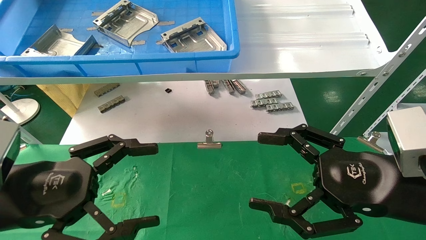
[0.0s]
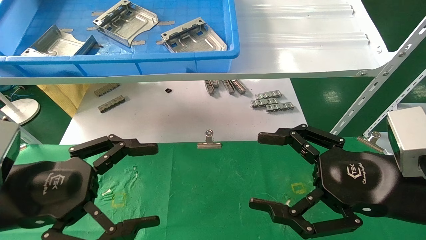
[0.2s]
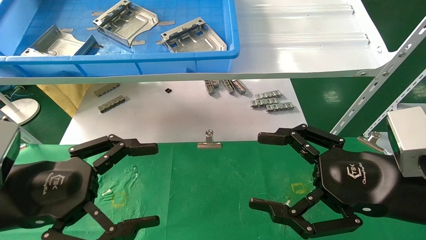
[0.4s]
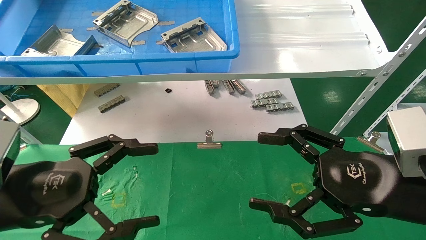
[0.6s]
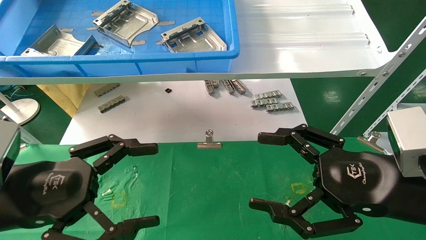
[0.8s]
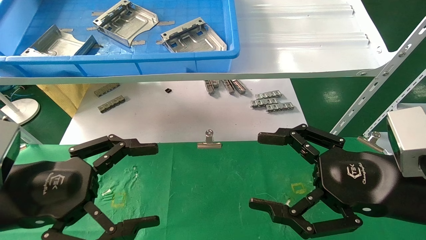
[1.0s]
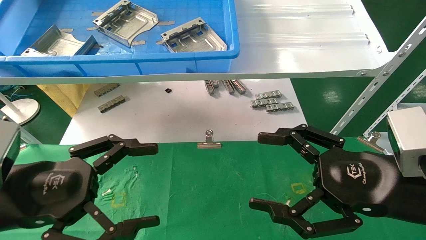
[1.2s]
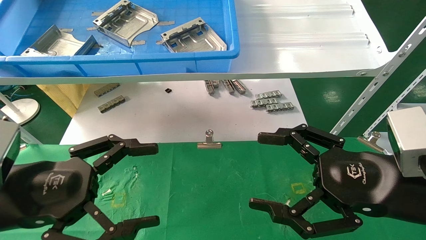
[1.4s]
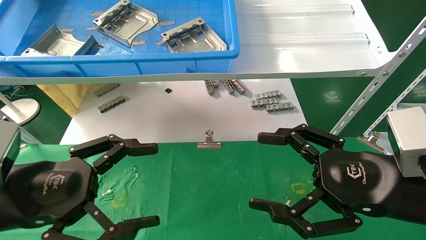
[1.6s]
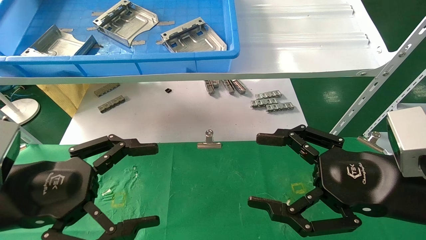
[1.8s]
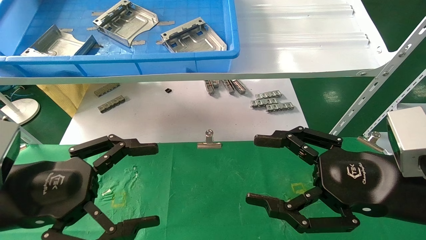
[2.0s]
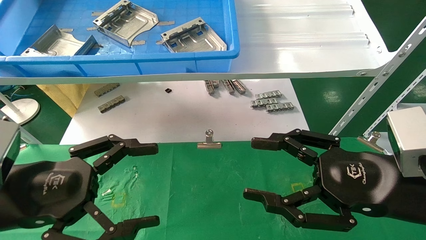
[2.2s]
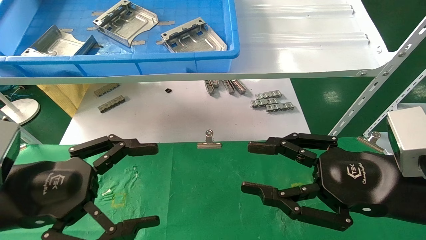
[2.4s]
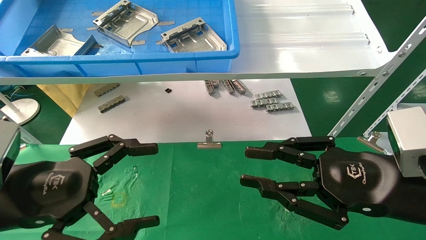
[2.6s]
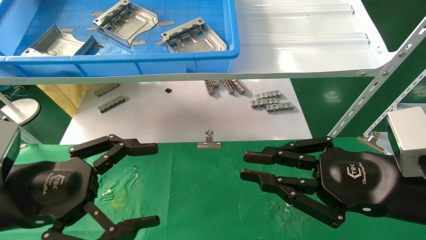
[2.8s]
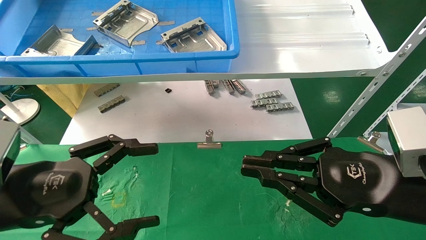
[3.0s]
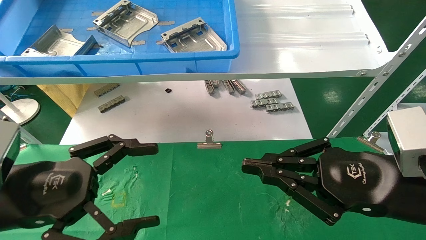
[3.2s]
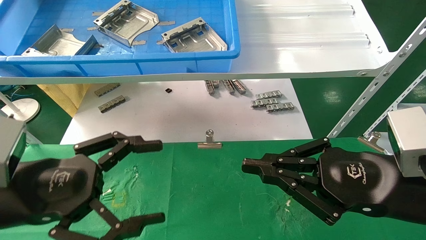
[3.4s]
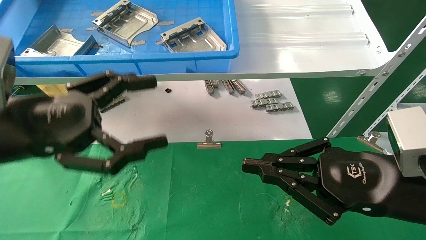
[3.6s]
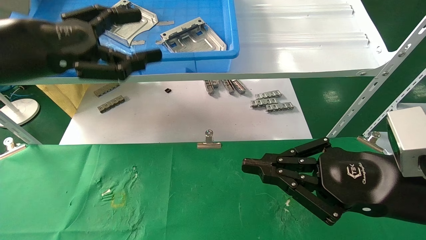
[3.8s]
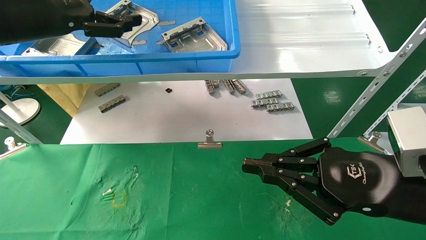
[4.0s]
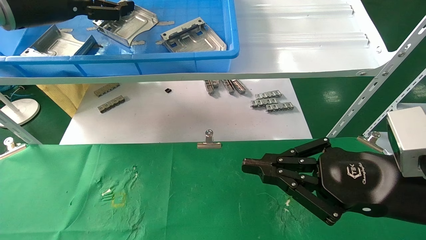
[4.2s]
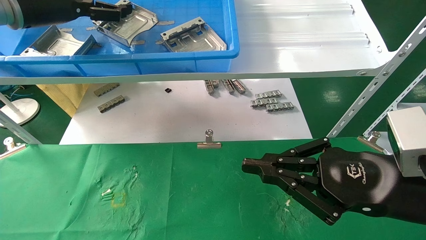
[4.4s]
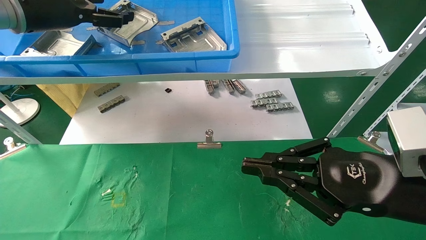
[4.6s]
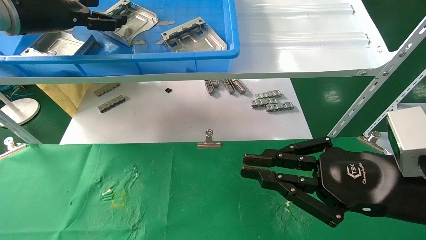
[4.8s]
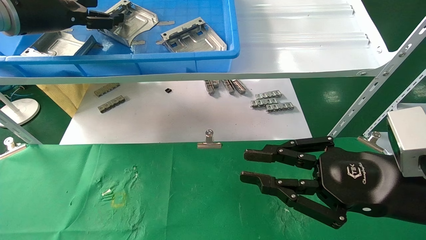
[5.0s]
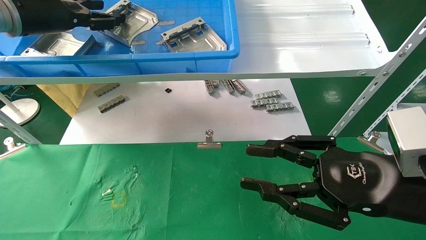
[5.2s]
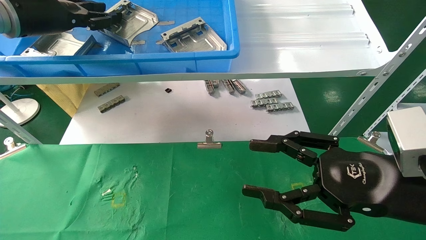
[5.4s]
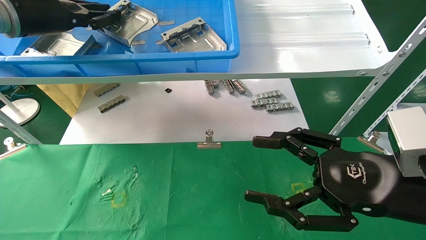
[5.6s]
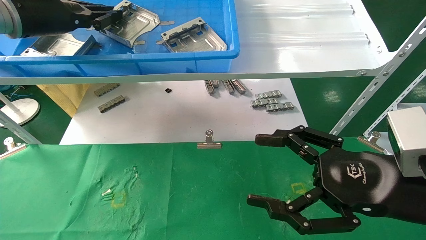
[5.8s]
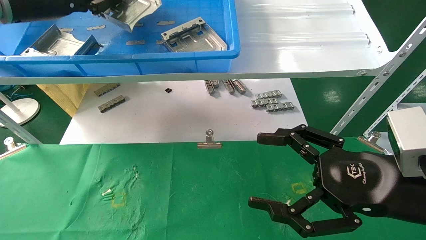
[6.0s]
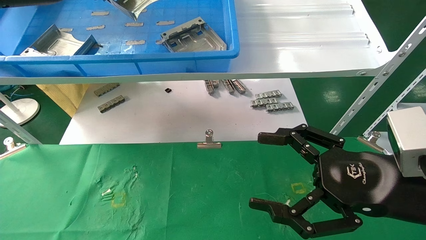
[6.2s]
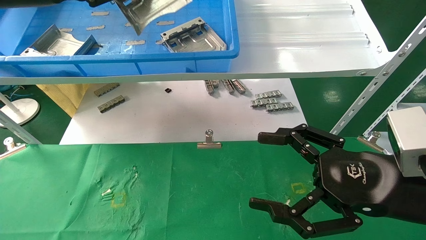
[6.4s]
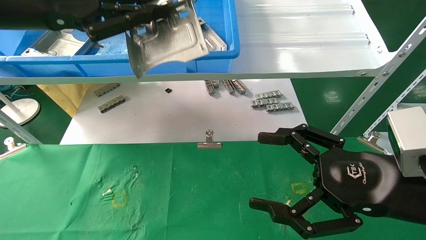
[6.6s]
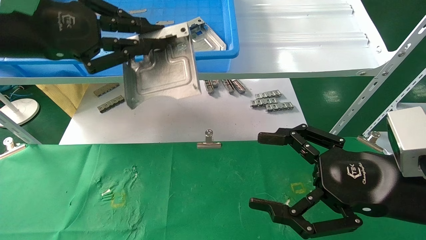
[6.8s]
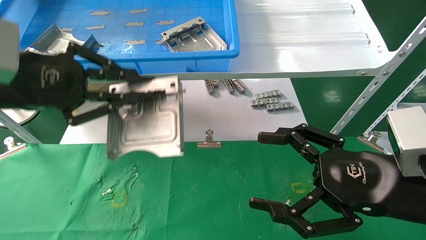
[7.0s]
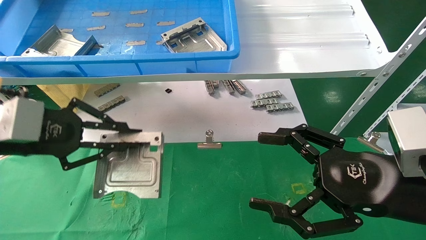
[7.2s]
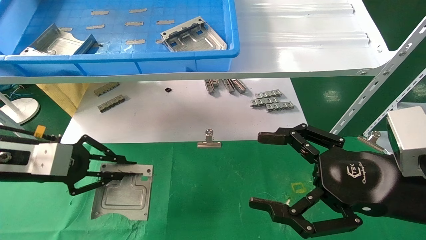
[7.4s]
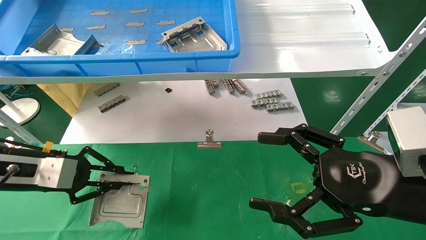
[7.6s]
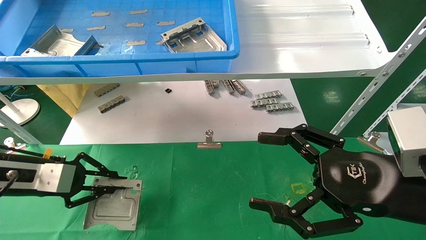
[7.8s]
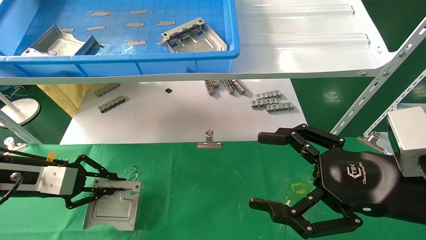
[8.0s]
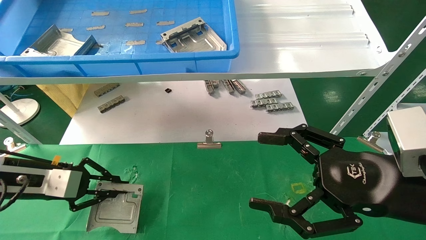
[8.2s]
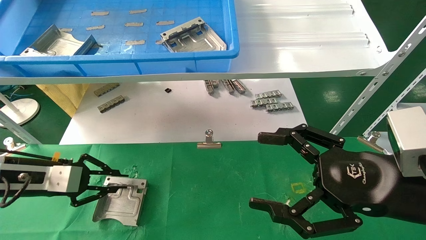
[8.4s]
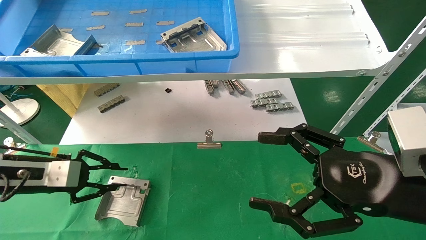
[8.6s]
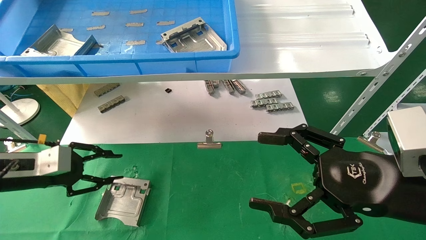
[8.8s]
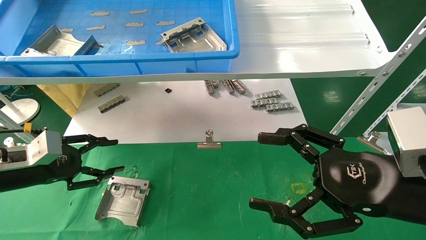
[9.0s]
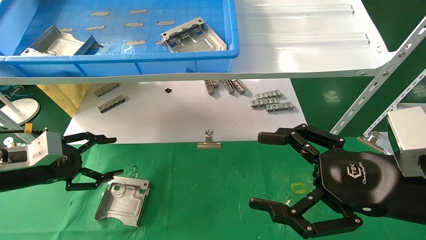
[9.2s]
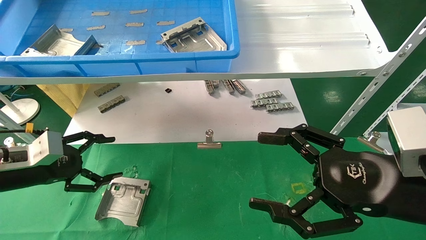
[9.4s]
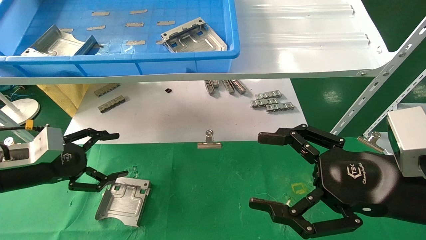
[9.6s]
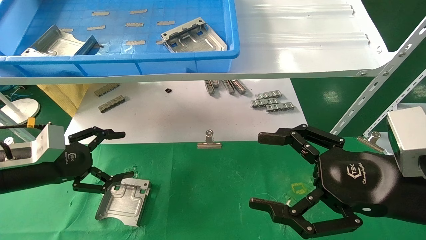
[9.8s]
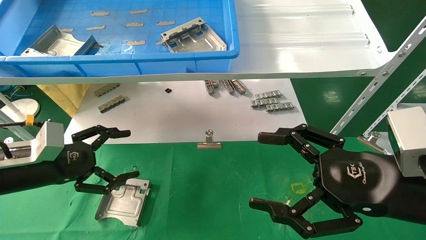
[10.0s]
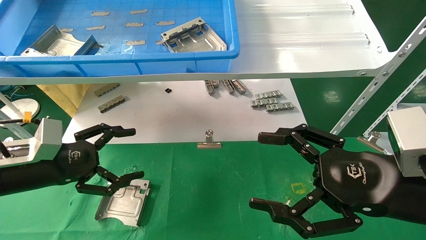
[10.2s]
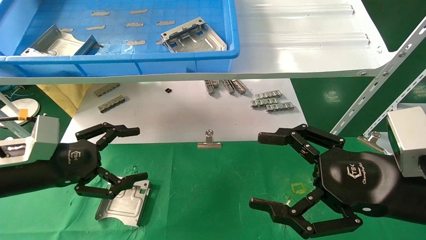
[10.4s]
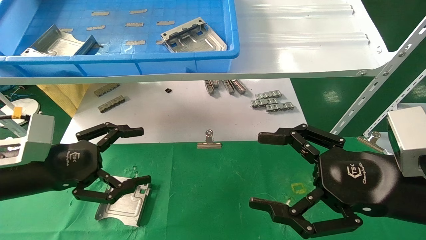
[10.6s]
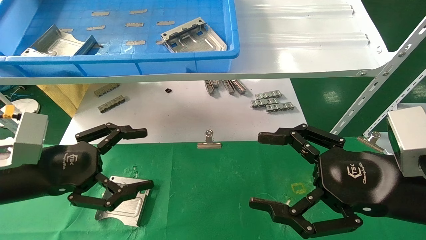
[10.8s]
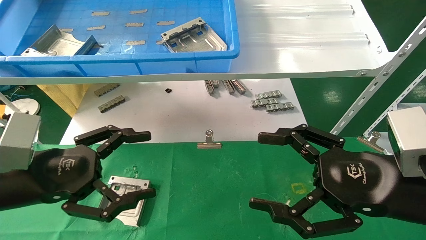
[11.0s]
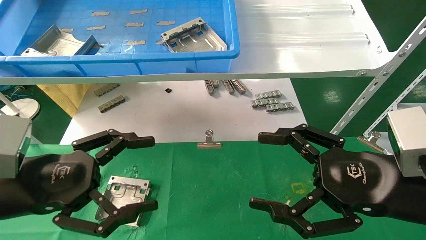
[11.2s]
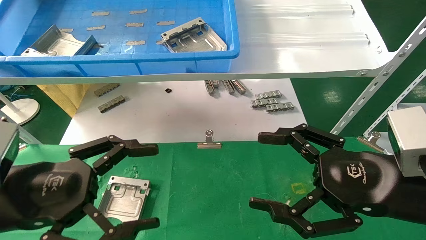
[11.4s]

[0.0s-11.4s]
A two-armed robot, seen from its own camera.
Task of the whole recording: use the mechanical arm to pick up the parts and place them on the table.
Step, 3.6s to 5.8s: Pick up the hard drive bracket from the feeding area.
Step, 6.0s to 9.0s: Place the hard drive bracket into the box.
0.0s to 1.4s: The two grippers keep their place.
1.4s to 2.8s: The right gripper closes.
2.8s to 4.2s: The left gripper is displaced upward and forward by about 30 cm.
4.2s to 5.6s: The left gripper closes up. Meanwhile the right gripper opens its fingers.
5.6s to 7.2s: The left gripper travels downward and backward by about 20 cm. The right gripper opens.
7.2s to 8.6s: The left gripper moves downward, forward and to the left, about 15 cm.
8.6s to 10.0s: The left gripper opens.
10.0s to 11.4s: The left gripper moves backward and to the right, approximately 15 cm.

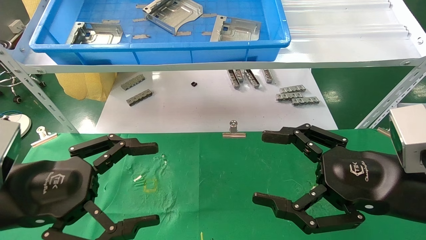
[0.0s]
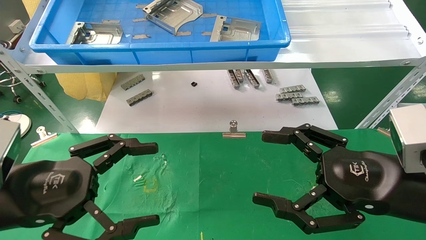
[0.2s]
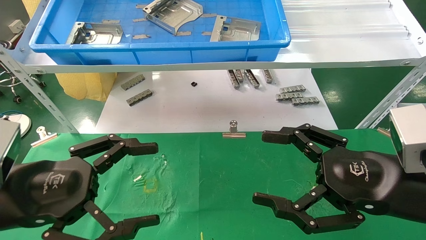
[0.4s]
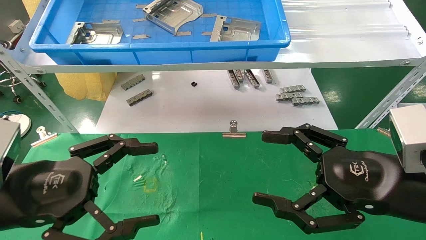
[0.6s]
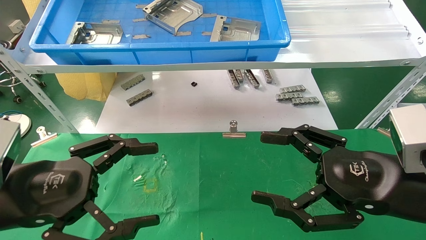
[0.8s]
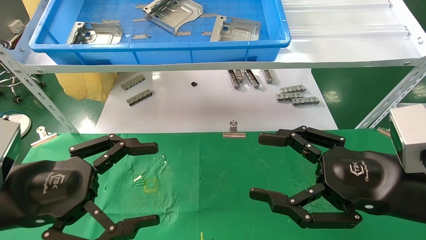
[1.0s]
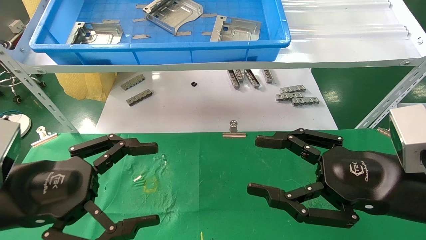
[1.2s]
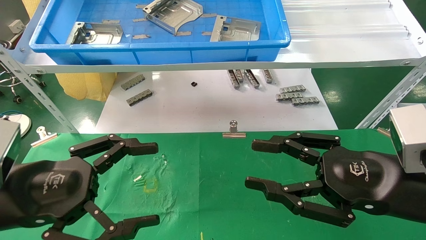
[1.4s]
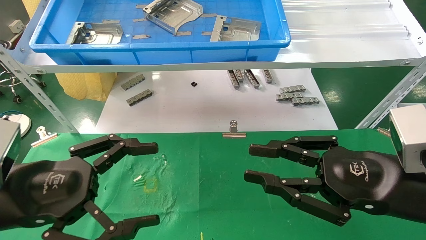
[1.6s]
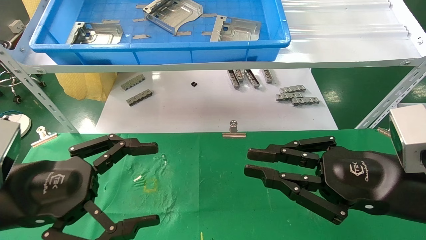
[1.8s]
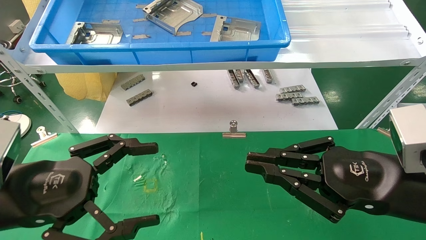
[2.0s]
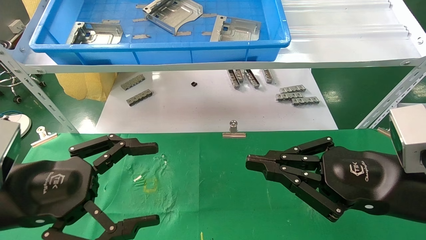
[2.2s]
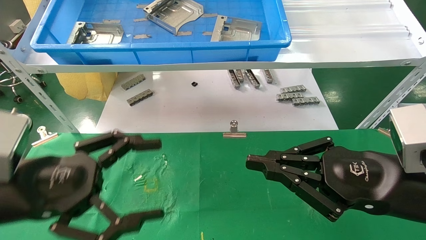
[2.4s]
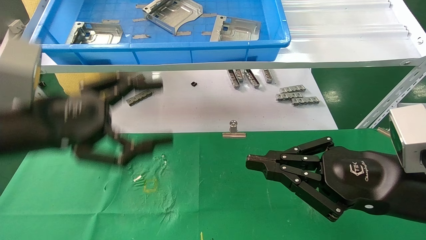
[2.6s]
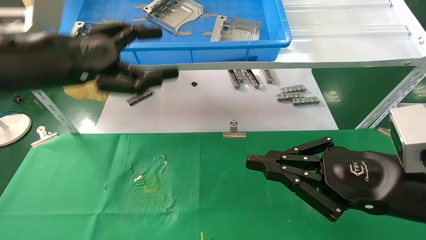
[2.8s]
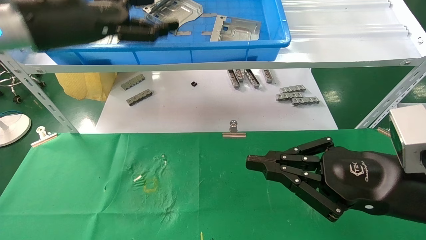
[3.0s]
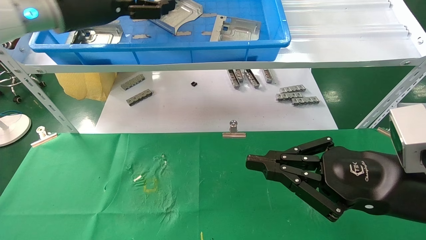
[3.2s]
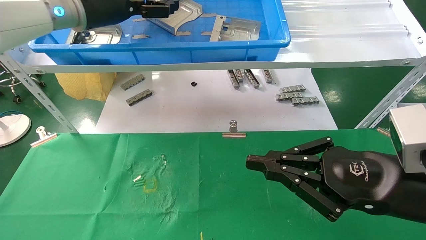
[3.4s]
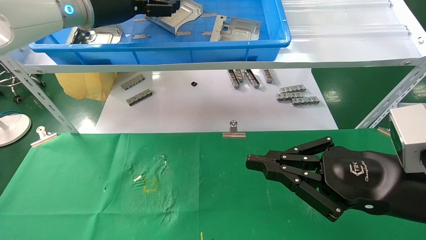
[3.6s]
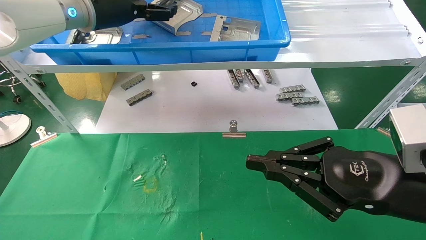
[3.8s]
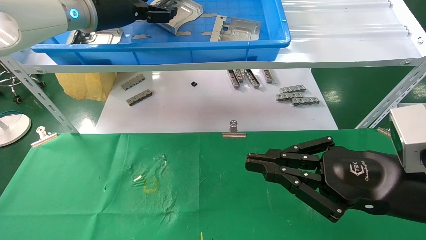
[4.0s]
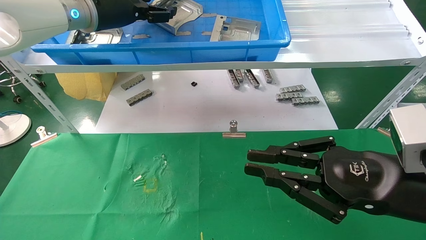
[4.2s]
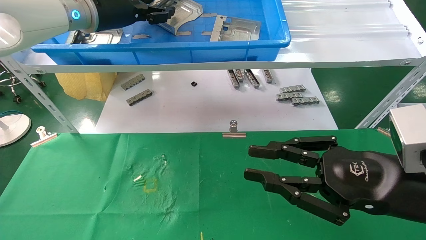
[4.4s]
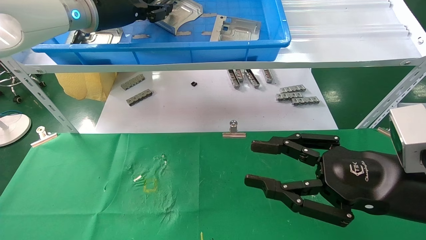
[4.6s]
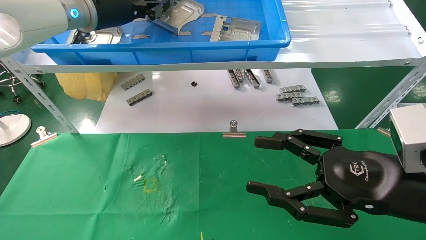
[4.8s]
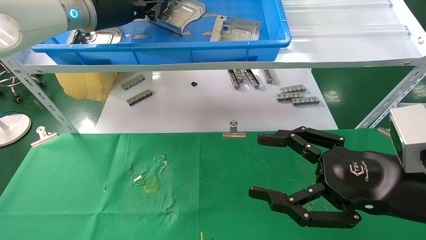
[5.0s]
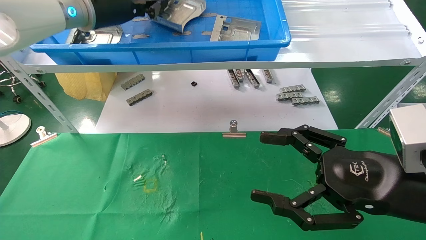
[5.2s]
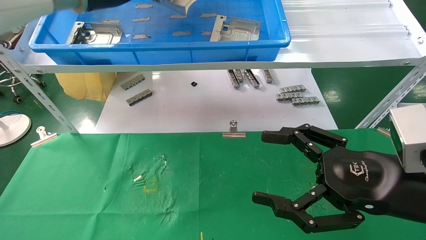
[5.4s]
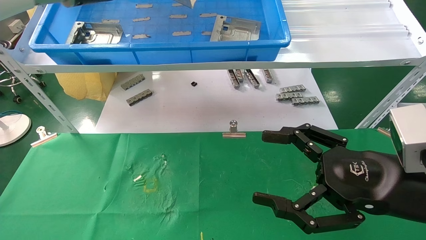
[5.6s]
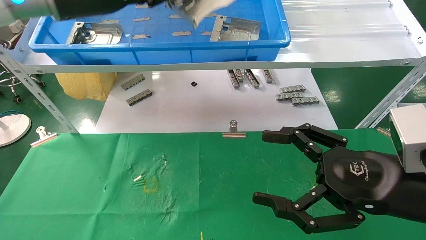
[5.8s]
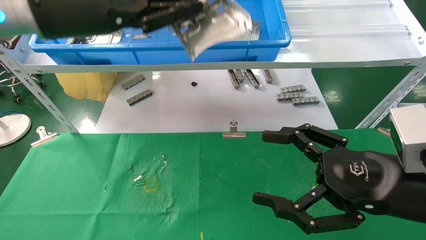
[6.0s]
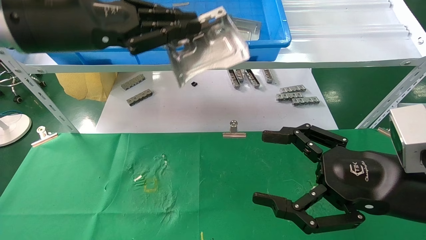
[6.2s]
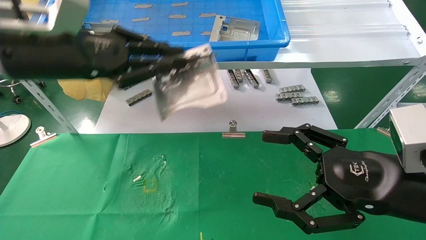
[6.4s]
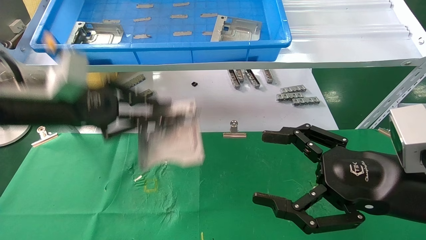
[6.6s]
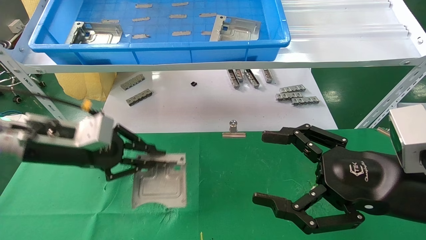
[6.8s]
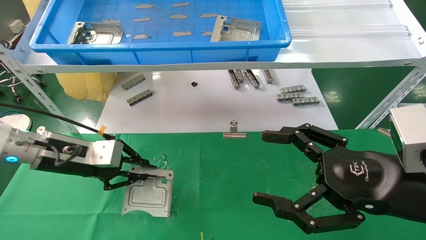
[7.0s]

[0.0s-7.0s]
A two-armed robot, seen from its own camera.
Task of the whole recording: use the mechanical arm to pick up the parts and place them on the table.
Step, 2.8s to 4.8s: Pick up the hard drive bracket from the feeding area.
0.0s to 1.4s: The right gripper closes.
1.4s to 2.8s: The left gripper travels upward and forward by roughly 20 cm. The right gripper closes its fingers.
2.8s to 4.2s: The left gripper travels forward and upward by roughly 15 cm.
4.2s to 5.6s: The right gripper opens up, while the left gripper heads backward, covering roughly 5 cm, and closes its fingers.
5.6s to 7.0s: The left gripper heads downward, covering approximately 25 cm.
